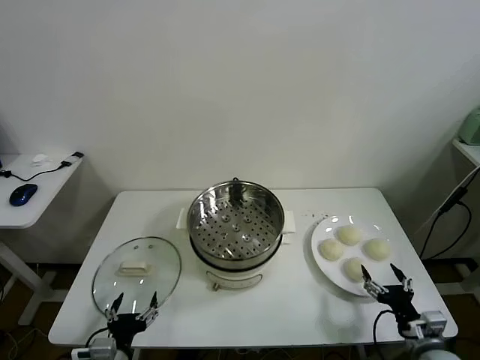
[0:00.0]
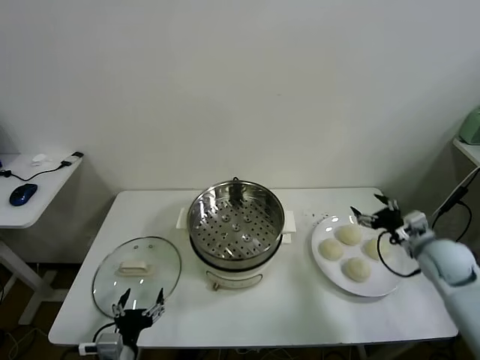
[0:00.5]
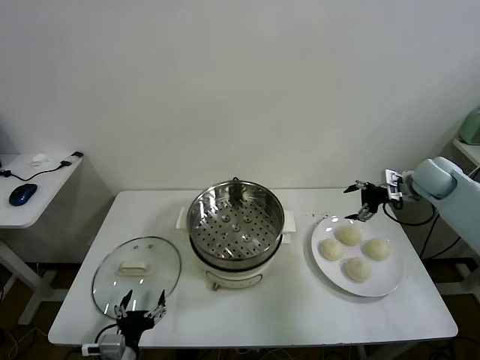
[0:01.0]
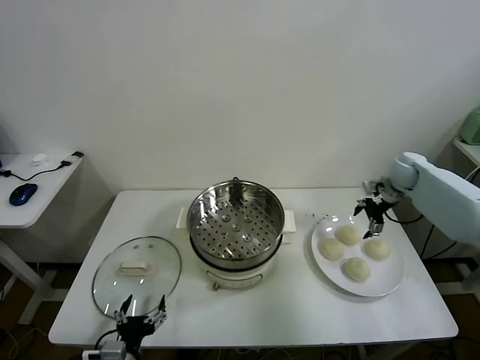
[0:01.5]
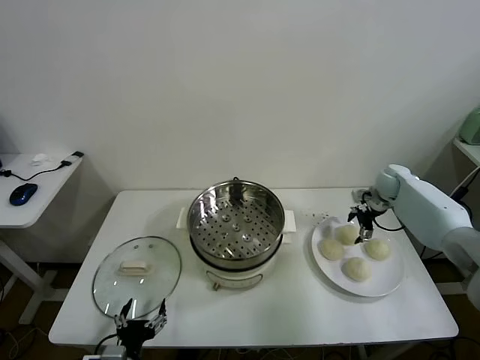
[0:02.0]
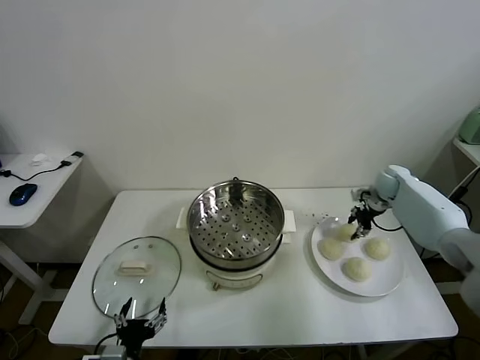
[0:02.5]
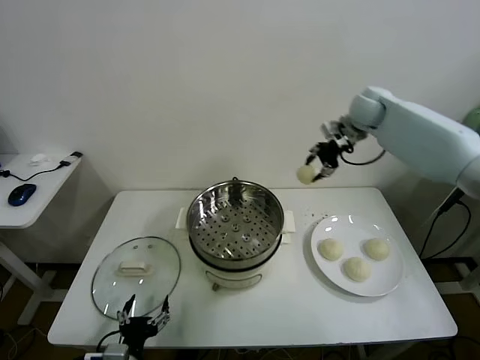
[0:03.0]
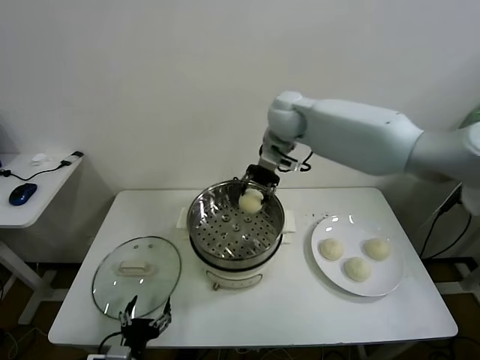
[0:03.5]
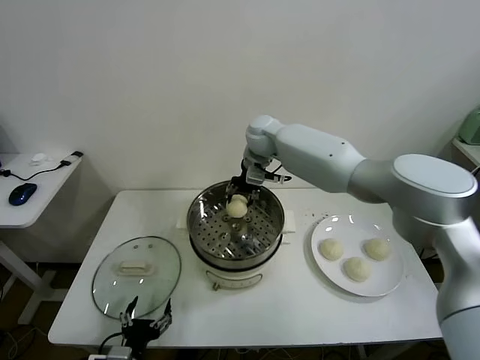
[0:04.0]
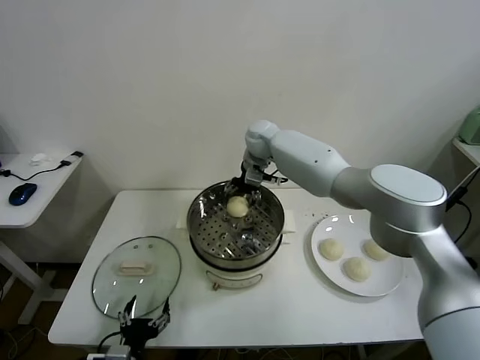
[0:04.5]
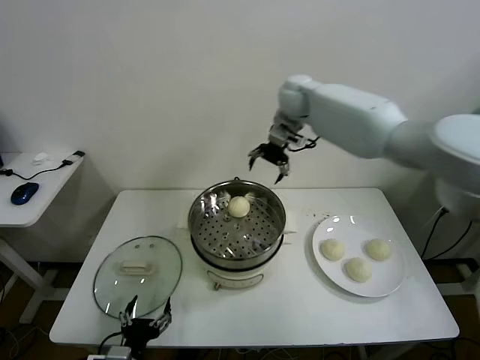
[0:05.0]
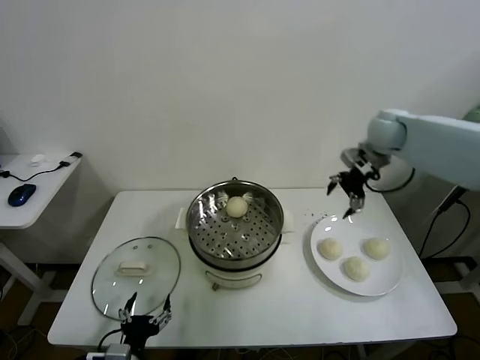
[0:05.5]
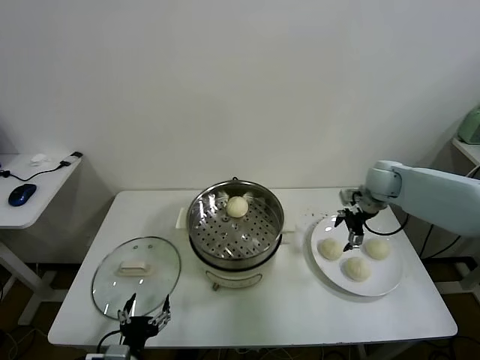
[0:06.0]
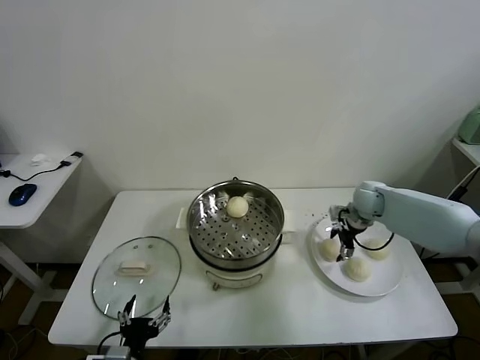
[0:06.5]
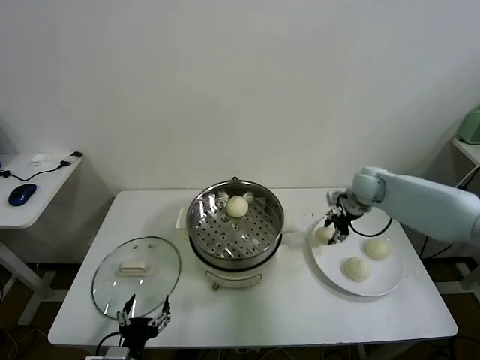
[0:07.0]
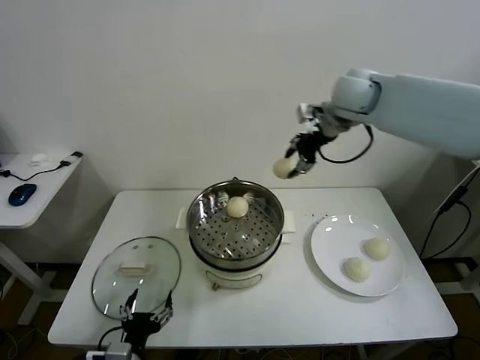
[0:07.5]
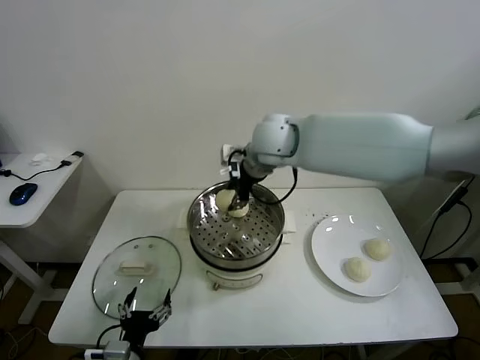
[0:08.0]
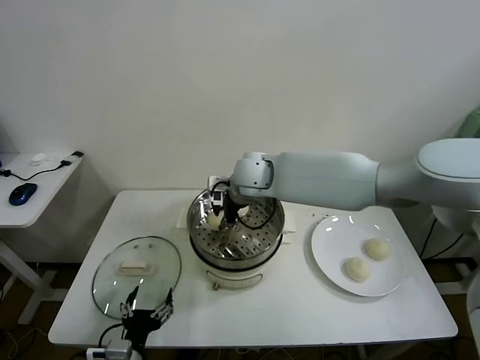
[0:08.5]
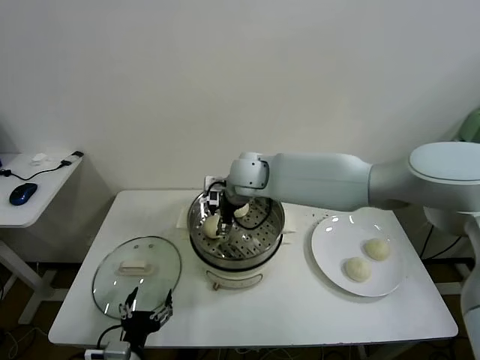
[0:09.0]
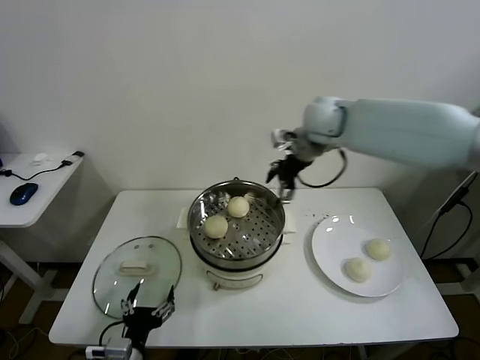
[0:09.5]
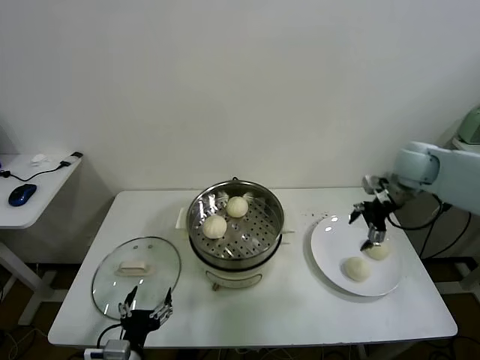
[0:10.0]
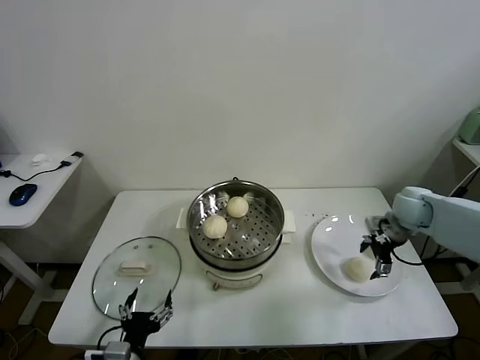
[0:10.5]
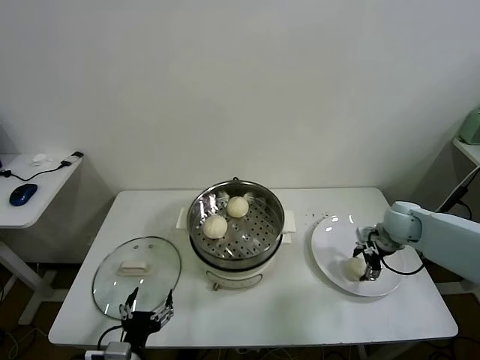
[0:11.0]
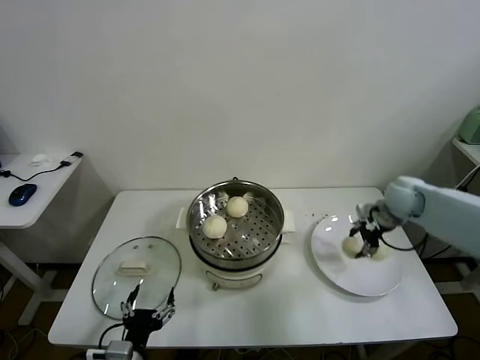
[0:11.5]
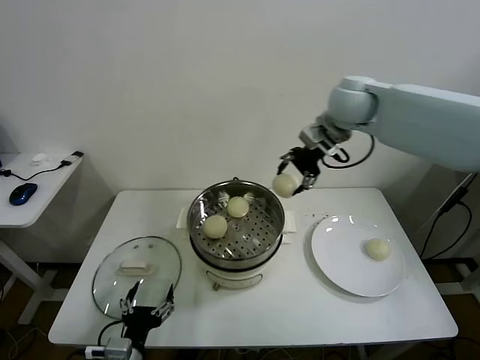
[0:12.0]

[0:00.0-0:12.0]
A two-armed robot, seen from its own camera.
Task of the whole recording: take steamed baozi put them in steamer.
Step, 0:00.0 to 0:02.5: Grasp the baozi in the plate with right gripper.
Step, 0:03.0 to 0:04.5: Place the baozi on the steamer with right gripper.
Step, 0:05.0 to 0:06.5: Grasp the baozi in the plate with right gripper.
Step, 0:07.0 to 0:09.0: Place the baozi on the steamer with right gripper.
Step, 0:09.5 to 0:11.0: Grasp the baozi in the plate with right gripper.
0:02.0 to 0:04.0: The right gripper travels to the left by approximately 35 cm, and closes up.
0:04.0 to 0:06.0: The right gripper shifts about 30 cm to the right, and opens its fingers.
0:06.0 to 0:08.0: The right gripper goes up and down, some 30 cm each way, reversing 2 times, and closes.
0:08.0 to 0:10.0: The right gripper moves to the right, some 35 cm, and opens its fingers.
0:10.0 to 0:12.0: The right gripper goes approximately 25 cm to the left and upward, and closes.

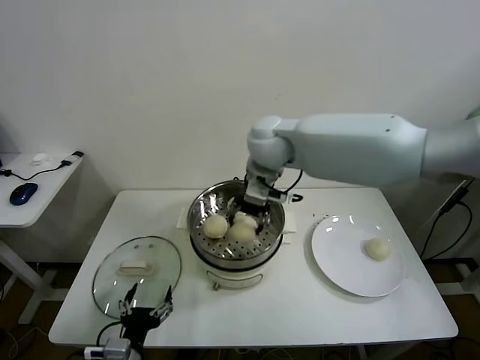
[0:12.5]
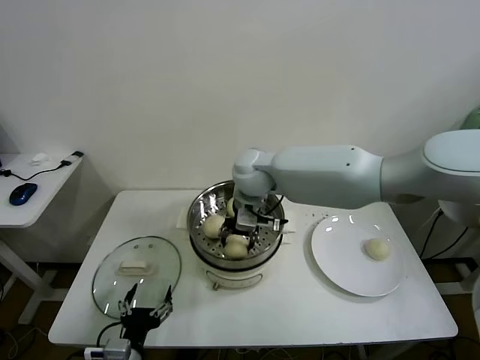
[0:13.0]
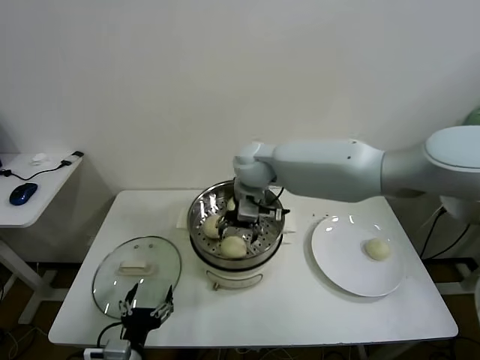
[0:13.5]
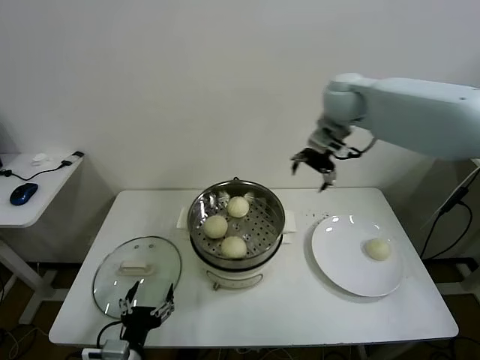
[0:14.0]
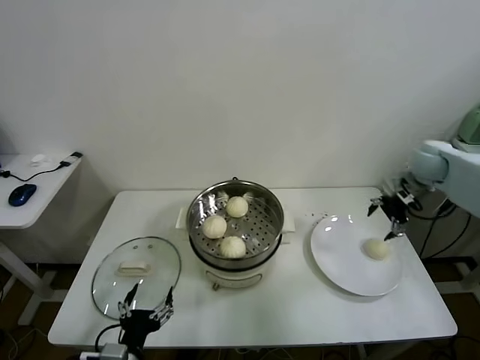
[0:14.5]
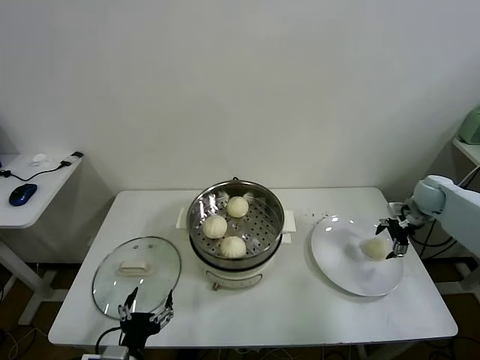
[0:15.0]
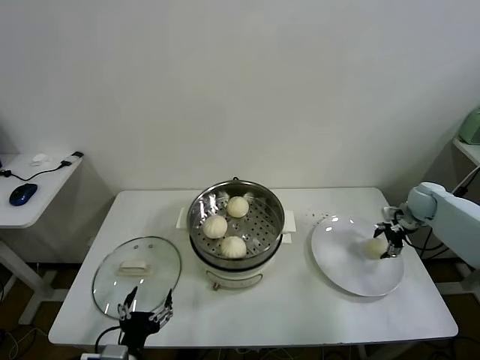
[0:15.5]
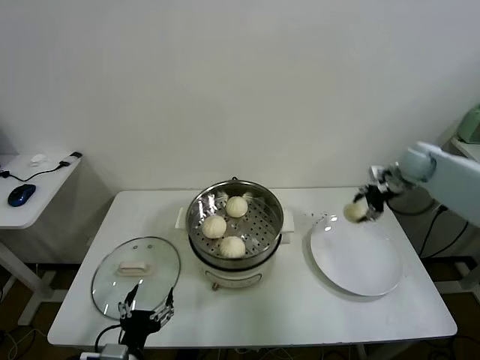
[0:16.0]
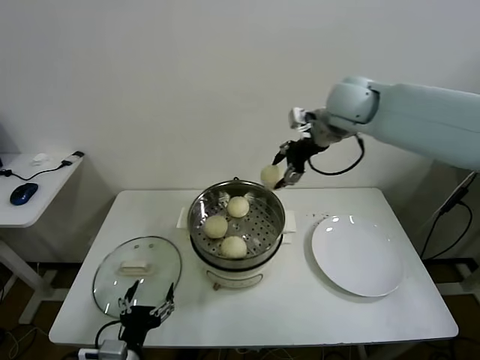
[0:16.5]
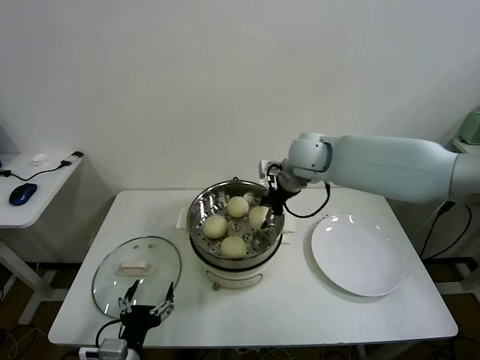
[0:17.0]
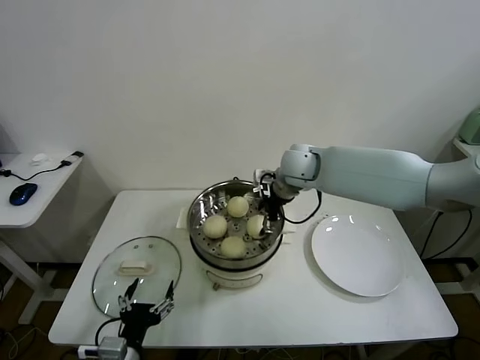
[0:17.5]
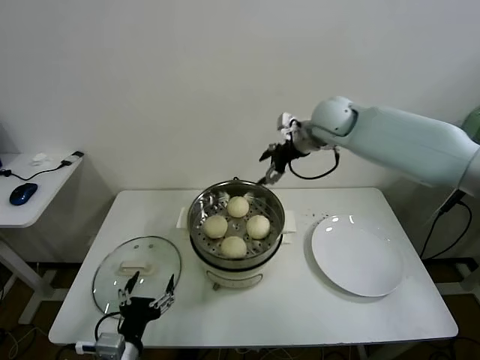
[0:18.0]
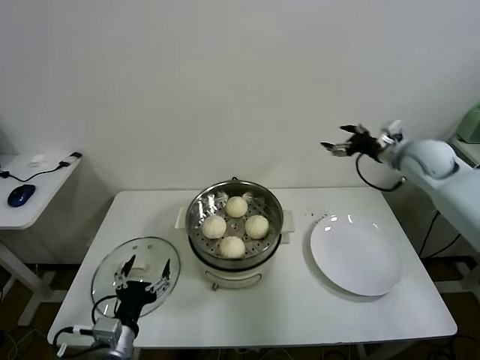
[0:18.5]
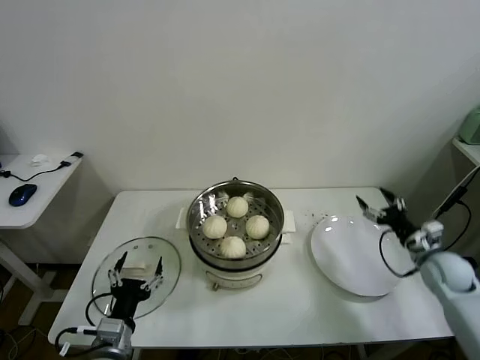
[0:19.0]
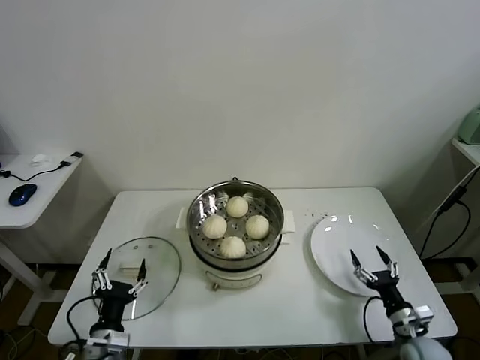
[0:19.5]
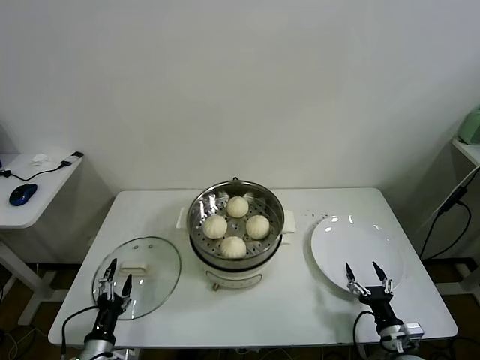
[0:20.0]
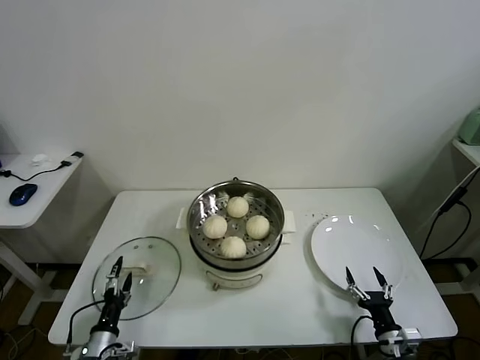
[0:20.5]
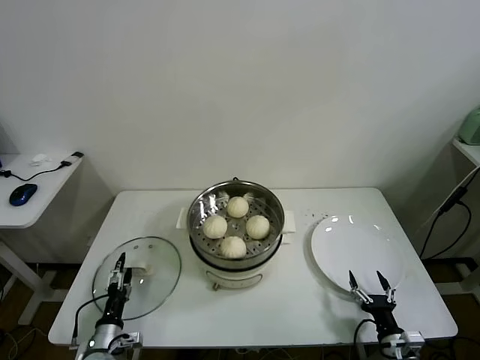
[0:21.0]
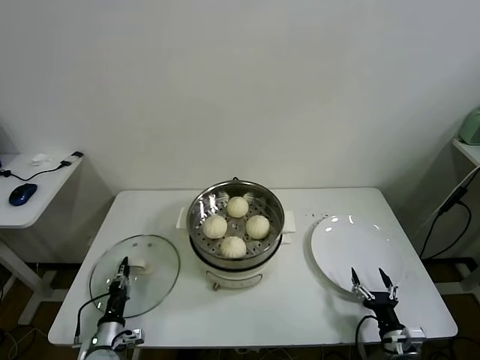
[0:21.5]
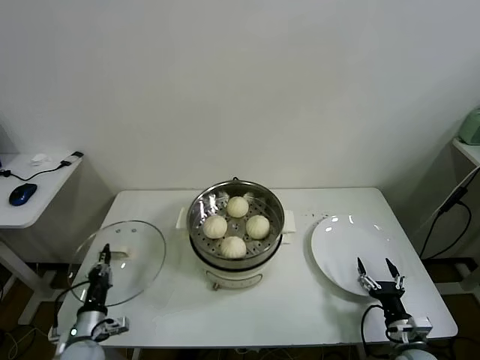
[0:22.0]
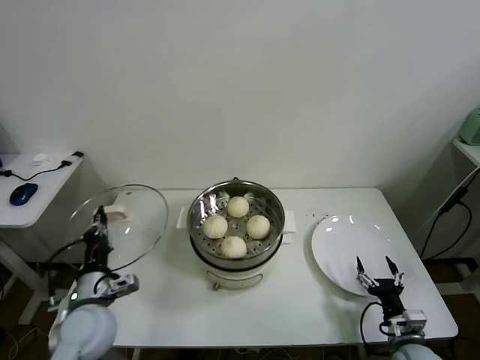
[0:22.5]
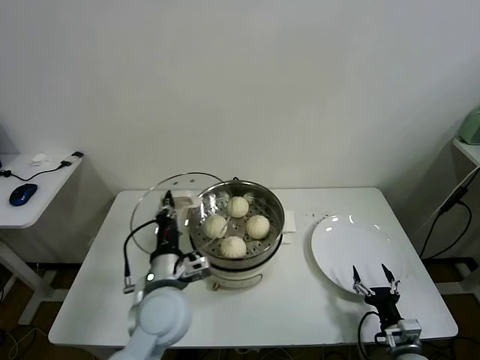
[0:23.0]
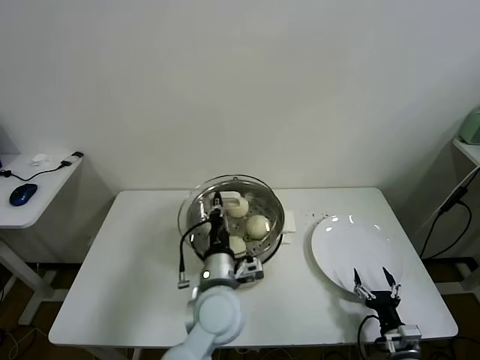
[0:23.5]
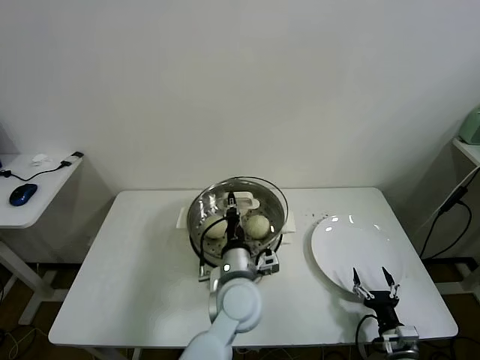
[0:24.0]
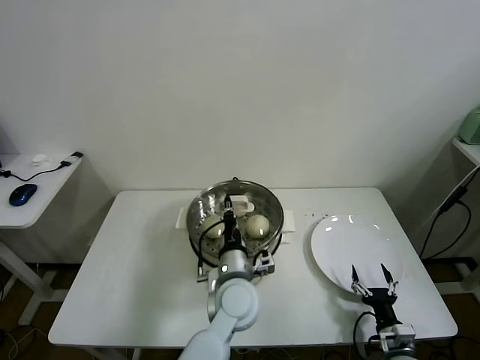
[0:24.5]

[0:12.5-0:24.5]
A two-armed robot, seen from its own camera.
Task of the whole recording: take steamed baozi put them in steamer.
Step, 0:13.5 to 0:15.5: Grasp the baozi in the plate with right gripper.
Step, 0:16.0 to 0:17.5: Place the baozi on the steamer with right gripper.
Step, 0:18.0 to 0:21.5: Grasp the pot lid with left gripper.
0:12.5 to 0:14.5: The right gripper is displaced to the right by about 40 cm, and opens its fingers.
0:14.5 to 0:16.5: The right gripper heads to the left and upward, covering roughly 30 cm, and closes its fingers.
0:16.5 to 0:18.5: The right gripper heads to the right and downward, covering roughly 25 cm, and opens up.
0:18.5 to 0:20.5: The right gripper heads downward and backward, covering about 50 cm. The left gripper shifts about 20 cm downward and to the left.
0:20.5 to 0:22.5: The left gripper moves upward, about 20 cm, and closes its fingers.
0:22.5 to 0:24.5: The left gripper shifts roughly 30 cm to the right.

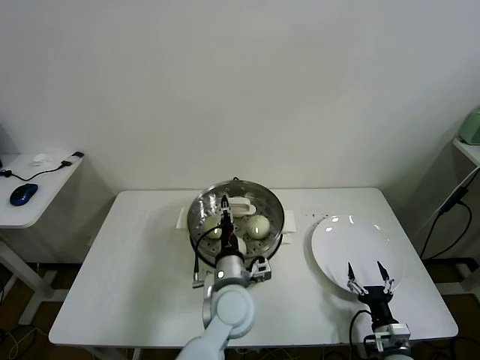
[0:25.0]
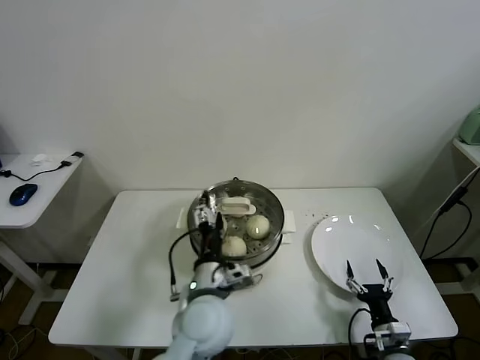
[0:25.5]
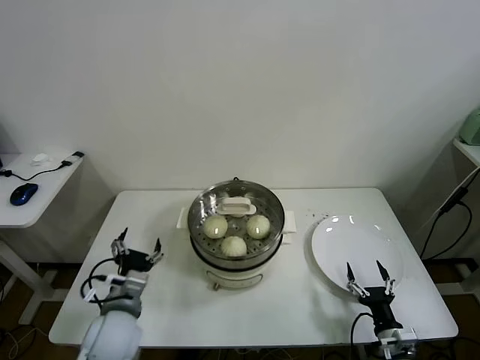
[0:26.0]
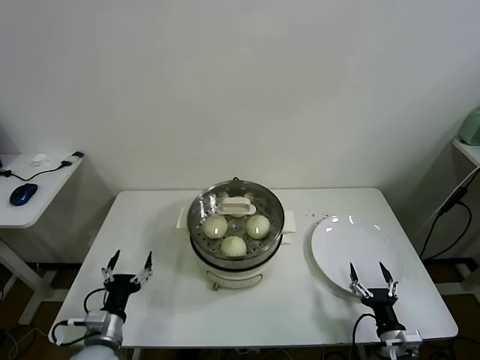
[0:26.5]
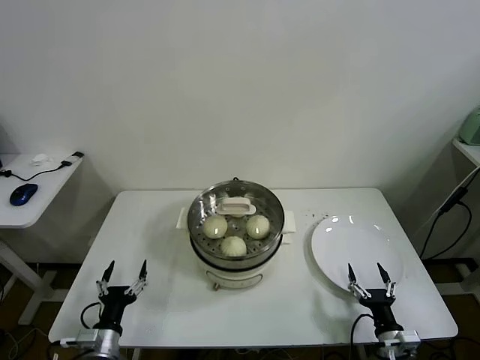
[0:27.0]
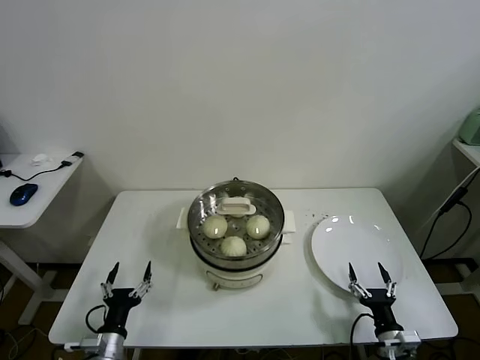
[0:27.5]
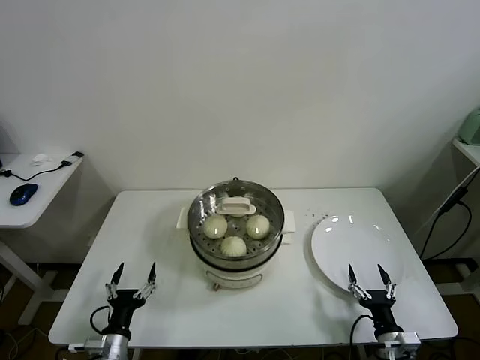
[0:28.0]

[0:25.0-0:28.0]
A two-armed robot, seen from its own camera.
Task of the whole recording: take steamed baozi put them in steamer.
0:25.0 to 0:26.5: The left gripper shifts approximately 30 cm to the left, and opens.
0:26.5 to 0:28.0: The left gripper changes place by approximately 5 cm.
